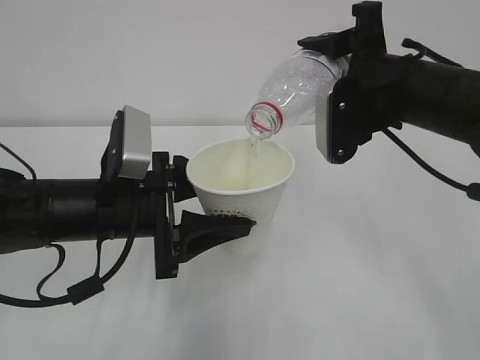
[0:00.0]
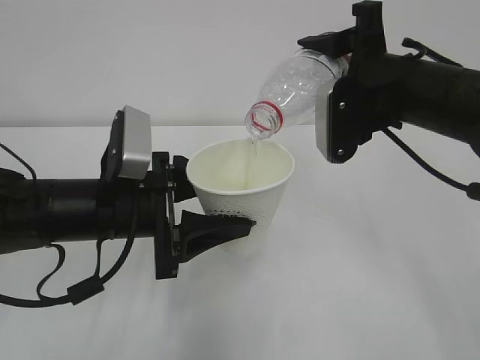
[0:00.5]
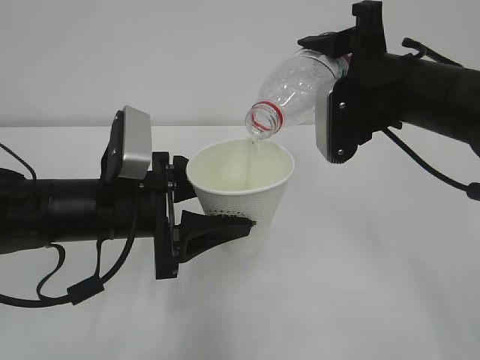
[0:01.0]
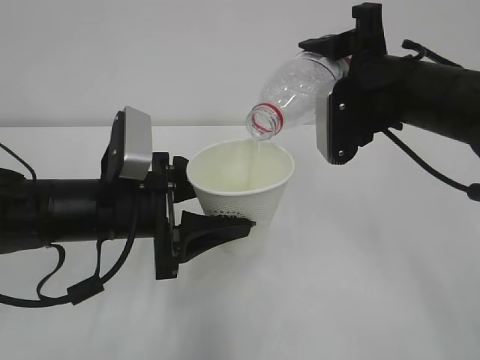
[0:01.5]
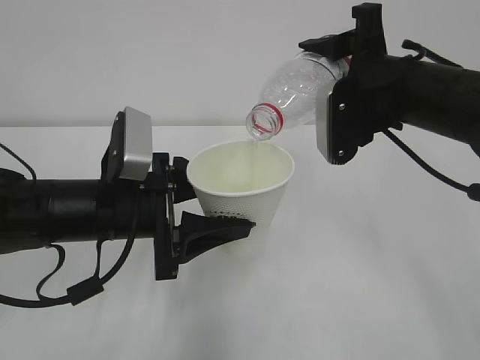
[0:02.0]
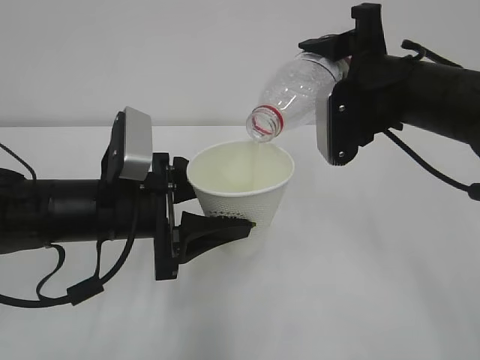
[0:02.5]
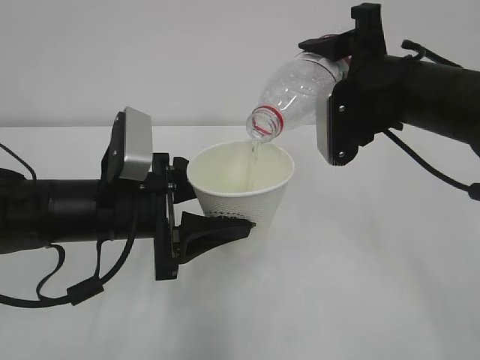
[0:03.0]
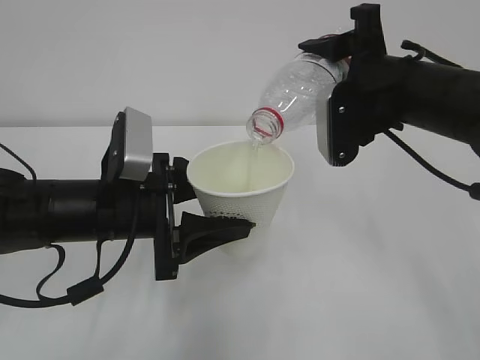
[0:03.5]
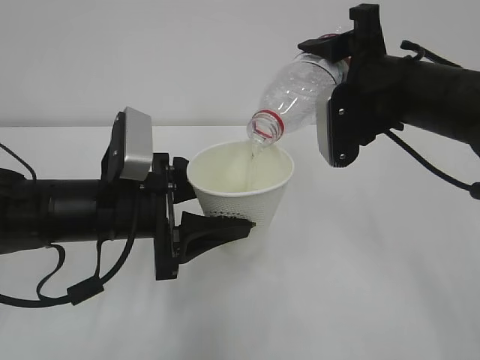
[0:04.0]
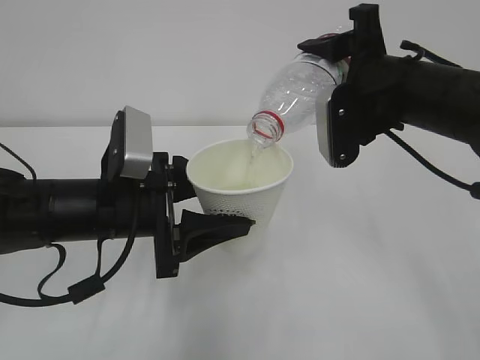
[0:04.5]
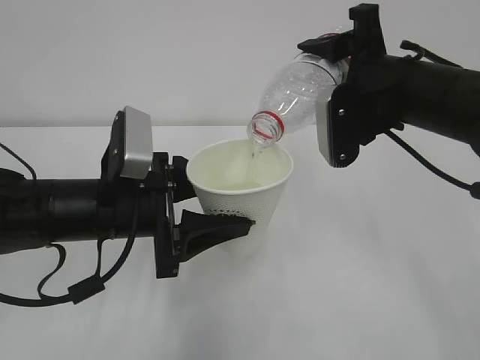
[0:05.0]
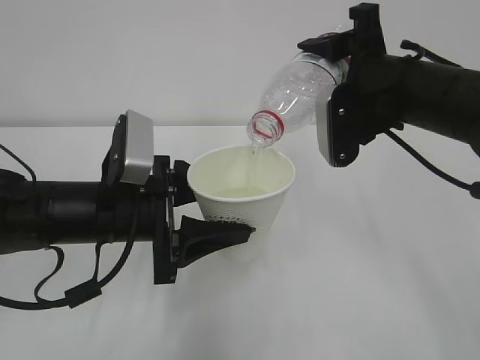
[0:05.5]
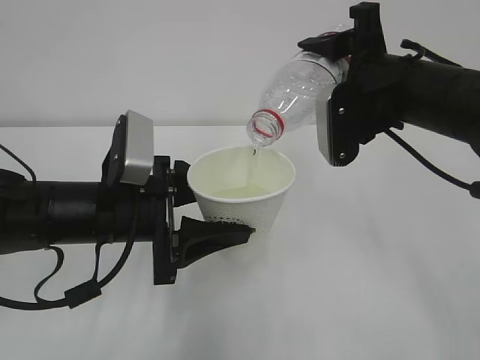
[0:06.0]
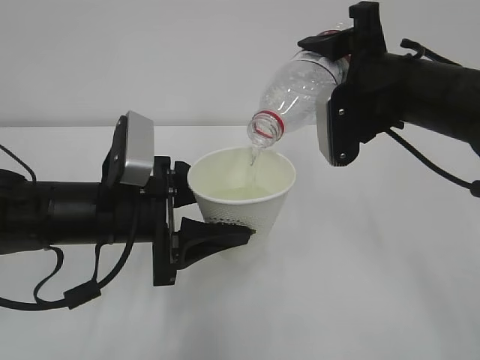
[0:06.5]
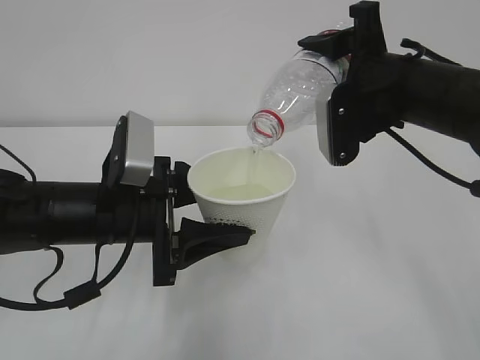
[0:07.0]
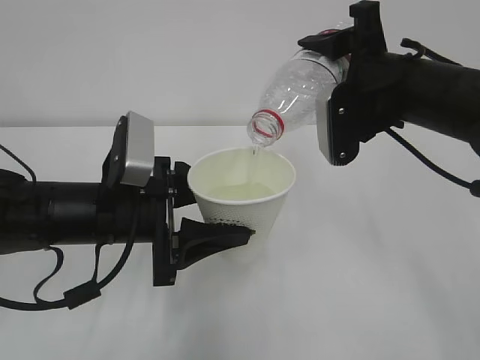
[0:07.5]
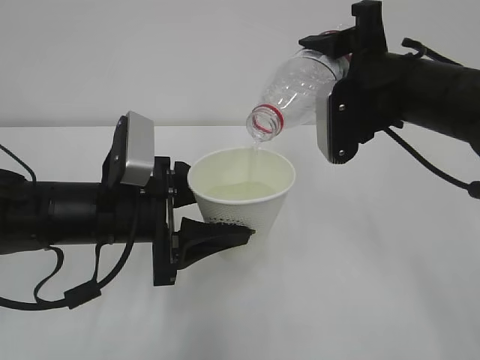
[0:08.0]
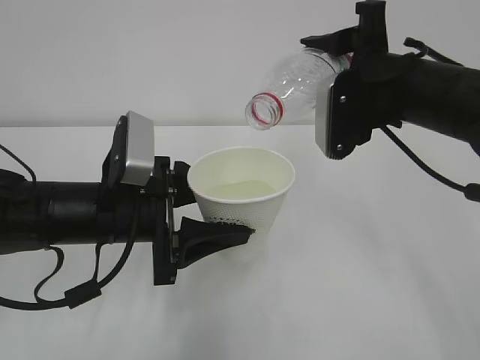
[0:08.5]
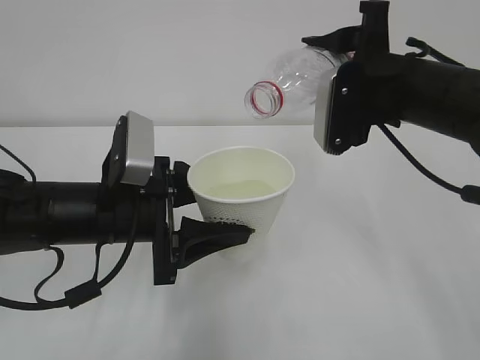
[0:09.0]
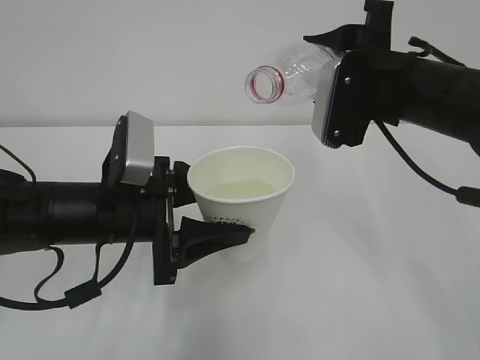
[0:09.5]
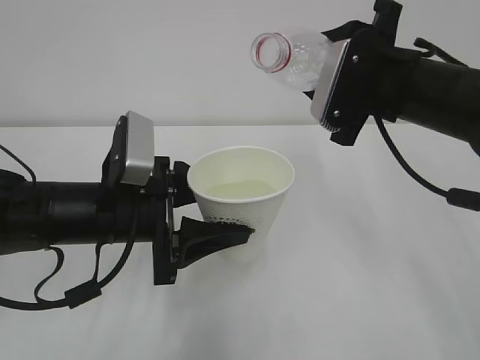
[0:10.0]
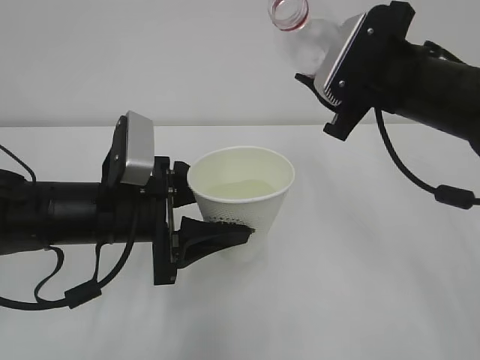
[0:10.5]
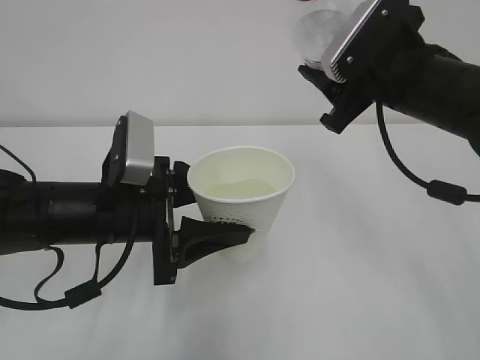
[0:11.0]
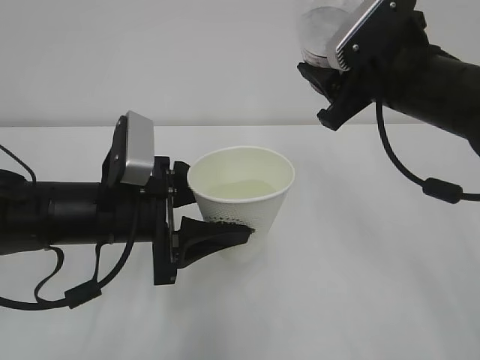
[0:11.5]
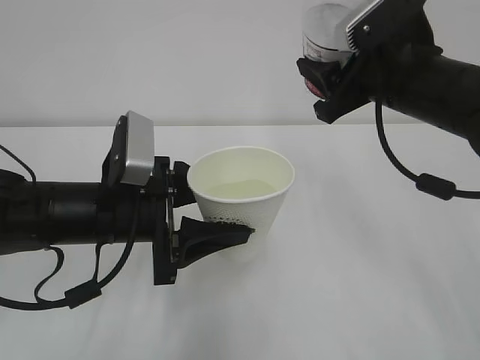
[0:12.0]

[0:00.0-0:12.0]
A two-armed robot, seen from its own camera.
0:00.0 to 0:08.0: Neither gripper changes place.

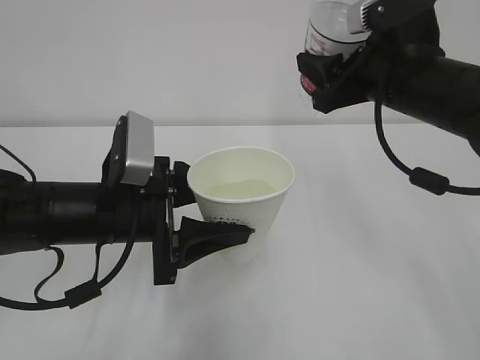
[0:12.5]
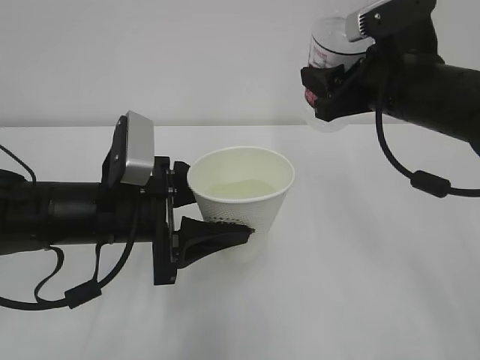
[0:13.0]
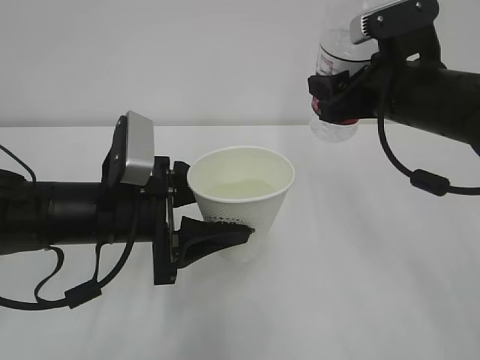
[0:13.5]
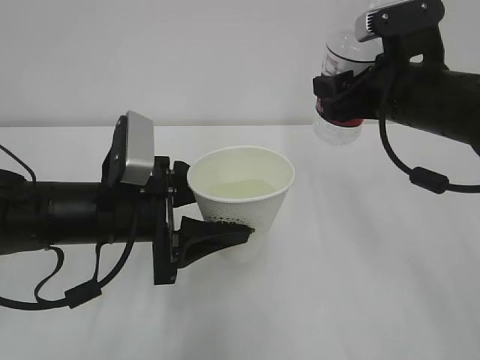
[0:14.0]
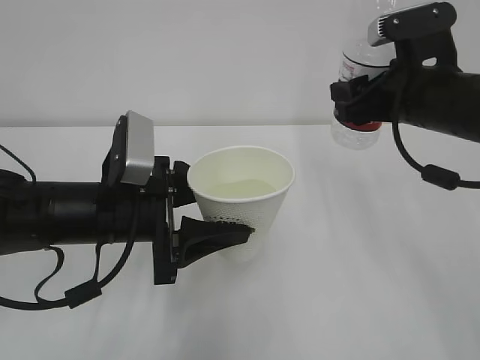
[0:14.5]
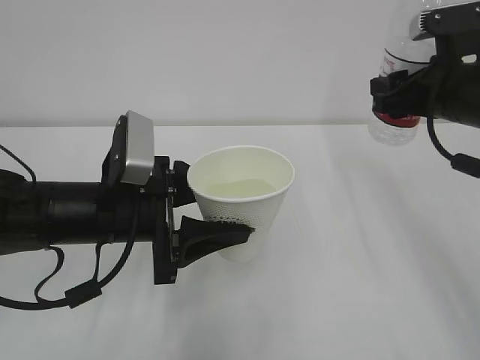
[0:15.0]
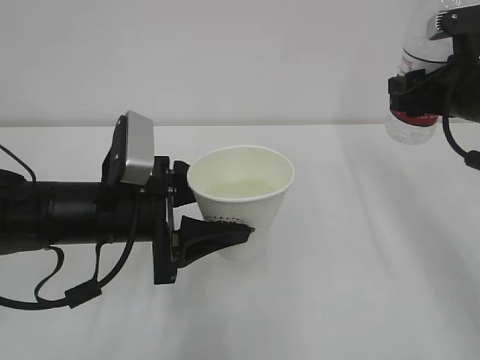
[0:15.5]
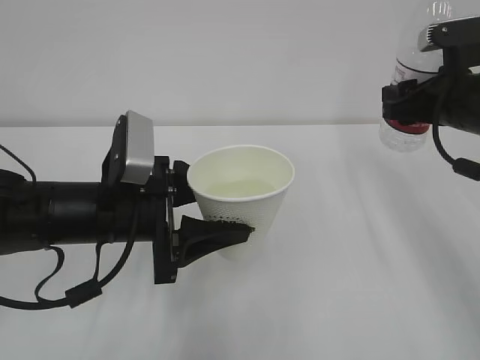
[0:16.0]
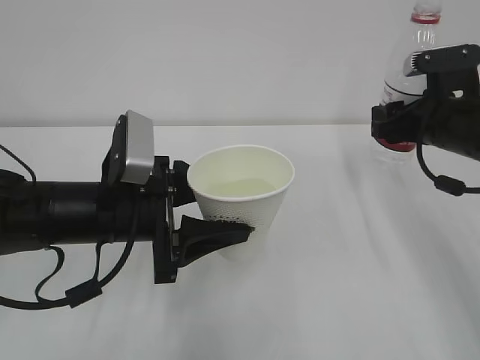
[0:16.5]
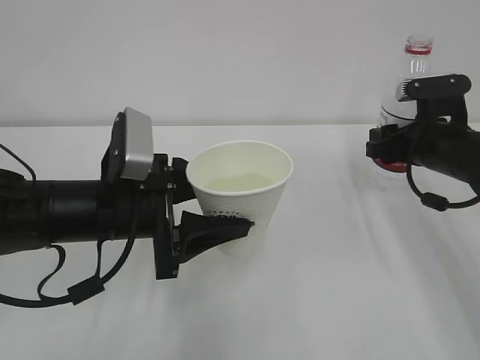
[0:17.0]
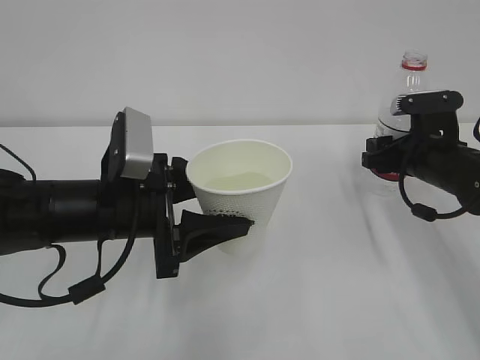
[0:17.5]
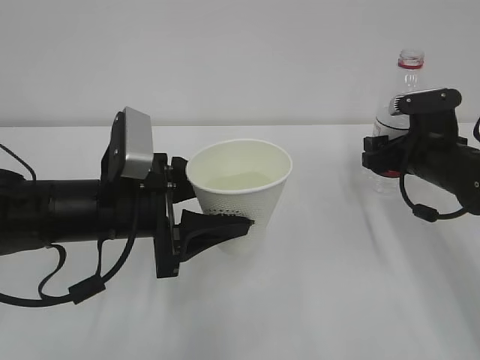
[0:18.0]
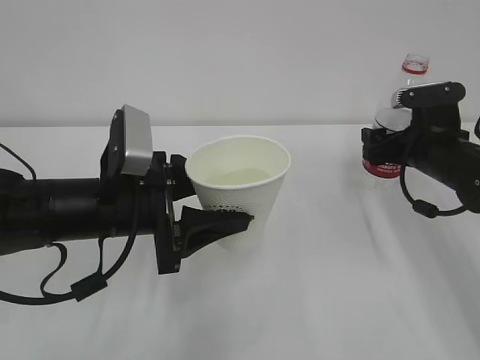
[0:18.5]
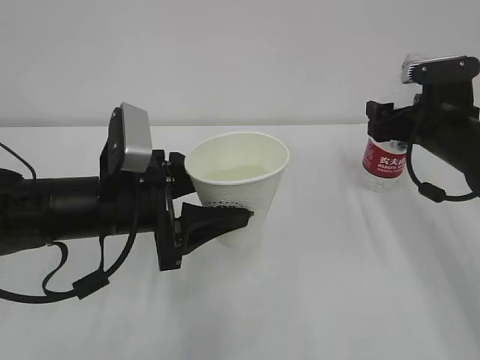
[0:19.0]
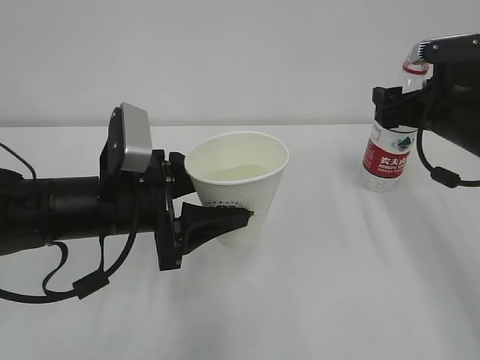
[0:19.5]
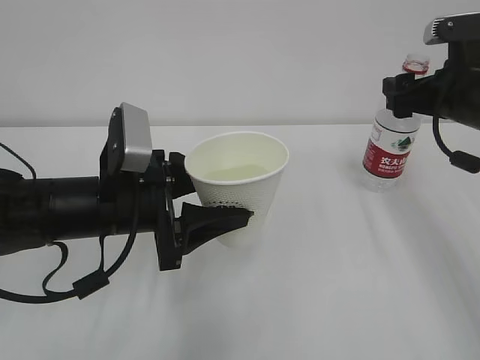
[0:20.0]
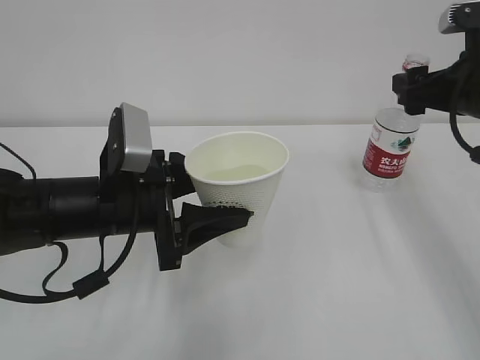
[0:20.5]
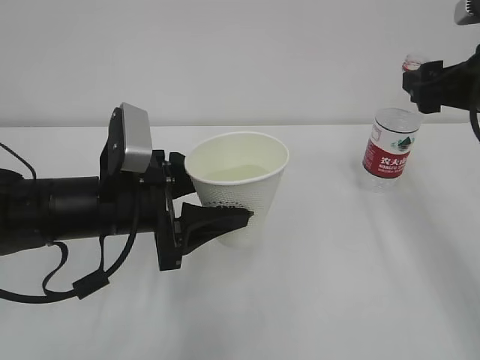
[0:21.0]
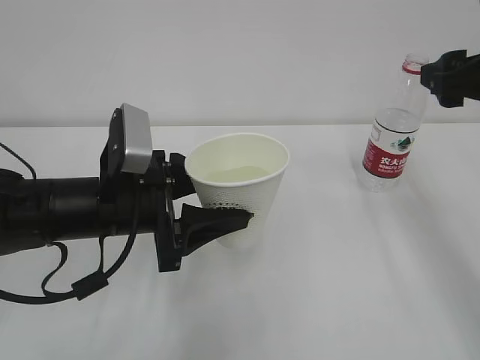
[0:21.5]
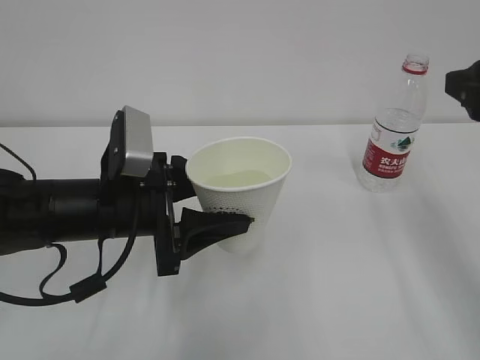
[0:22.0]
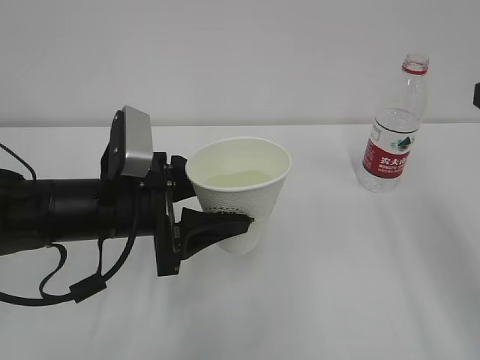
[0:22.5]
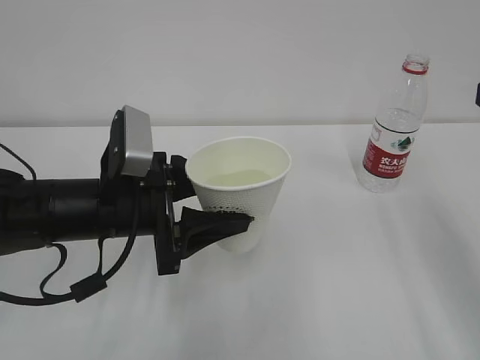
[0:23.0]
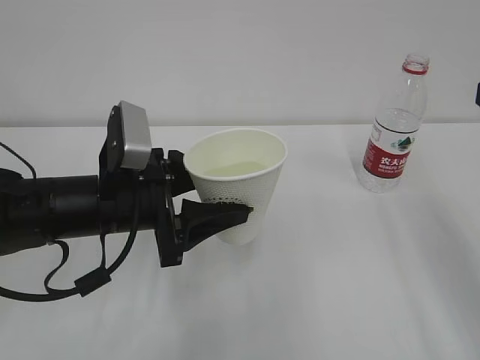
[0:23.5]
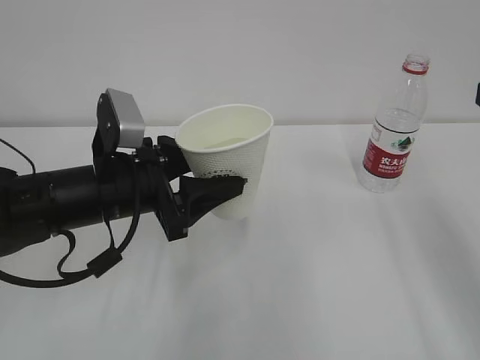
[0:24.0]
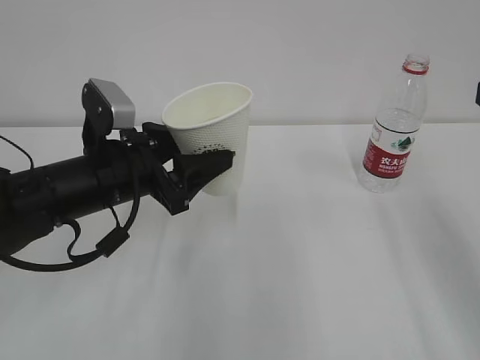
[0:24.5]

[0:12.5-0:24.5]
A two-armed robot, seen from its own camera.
0:12.5 to 0:14.5: The grippers move only a little.
0:14.5 to 0:16.5: The right gripper heads to the right and downward, covering roughly 10 cm.
0:16.5 to 0:18.5: The right gripper shifts about 5 cm downward, and opens up.
0:18.5 to 0:20.5: The right gripper goes some 10 cm upward.
0:20.5 to 0:22.5: The right gripper goes about 15 cm backward and upward.

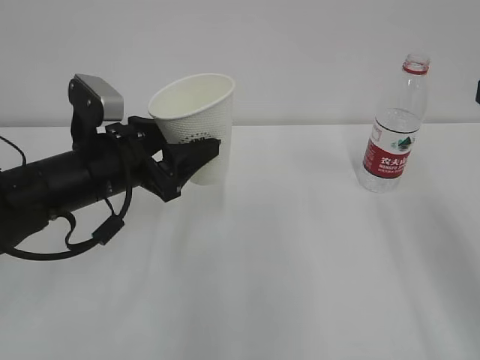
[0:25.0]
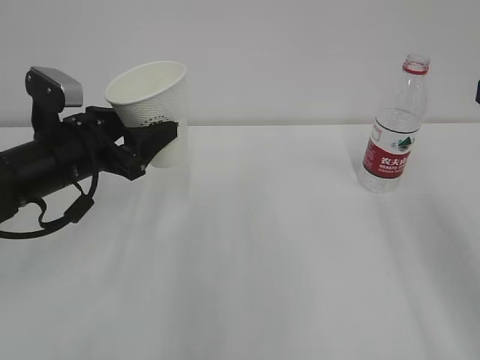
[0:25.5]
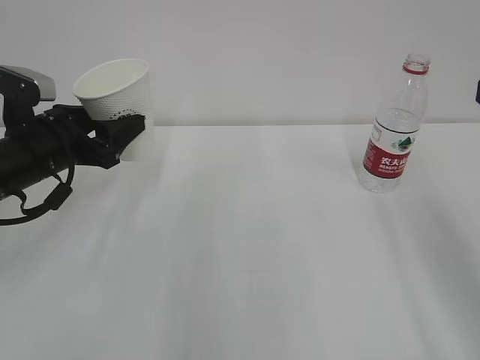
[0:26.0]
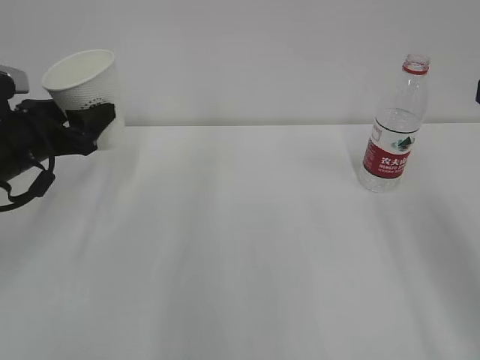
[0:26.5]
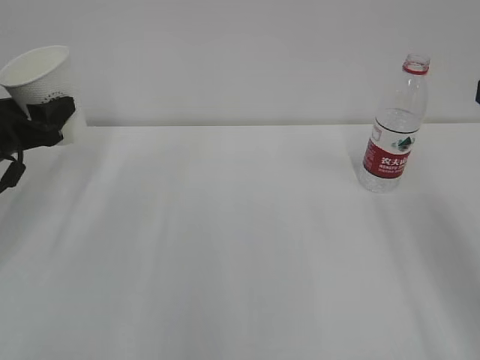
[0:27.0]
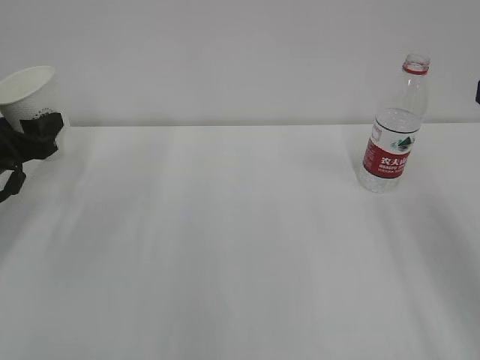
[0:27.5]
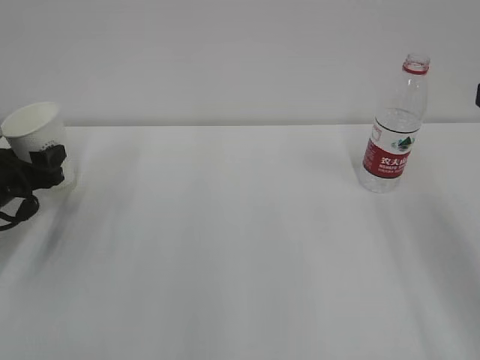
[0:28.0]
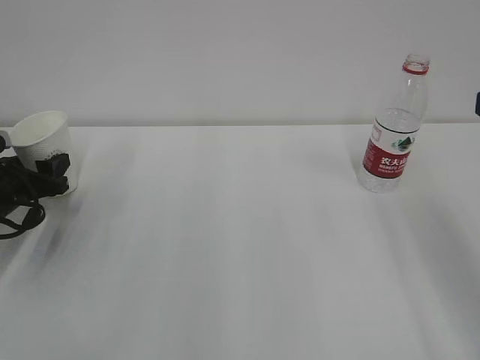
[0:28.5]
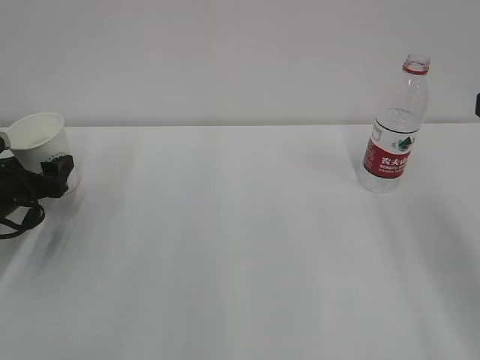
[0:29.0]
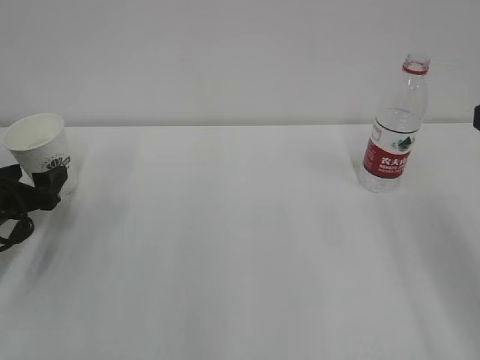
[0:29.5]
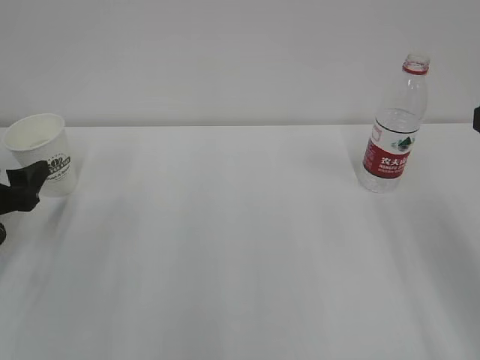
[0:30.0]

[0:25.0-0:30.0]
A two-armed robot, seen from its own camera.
0:25.0 to 0:27.5: The left gripper heads to the left, covering approximately 15 cm.
0:27.5 to 0:30.0: The left gripper moves backward, about 5 cm, and opens.
